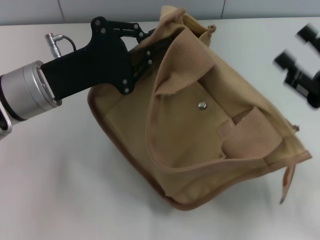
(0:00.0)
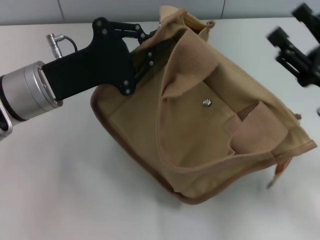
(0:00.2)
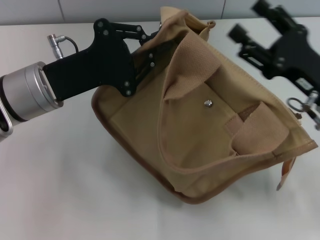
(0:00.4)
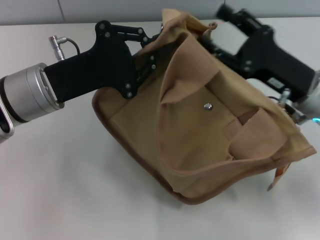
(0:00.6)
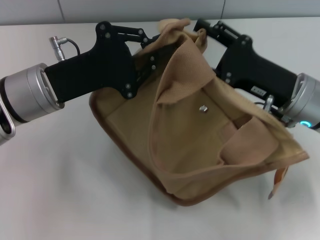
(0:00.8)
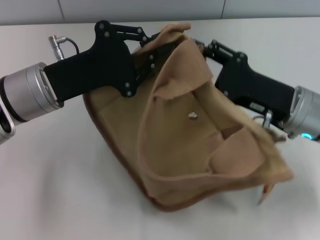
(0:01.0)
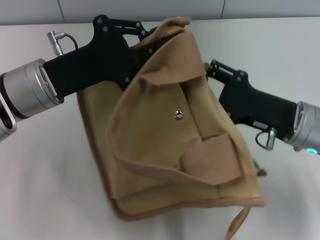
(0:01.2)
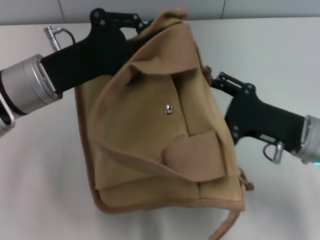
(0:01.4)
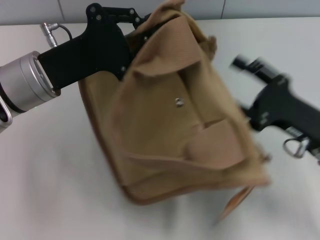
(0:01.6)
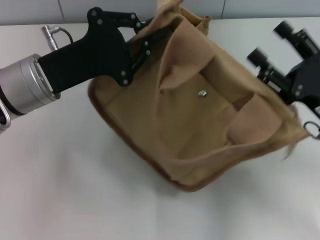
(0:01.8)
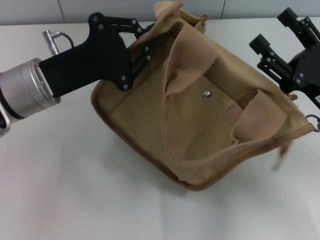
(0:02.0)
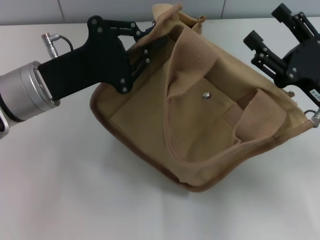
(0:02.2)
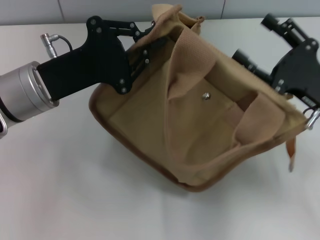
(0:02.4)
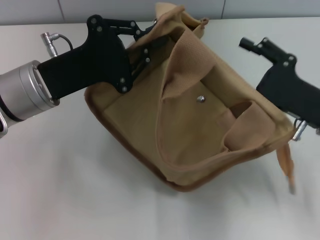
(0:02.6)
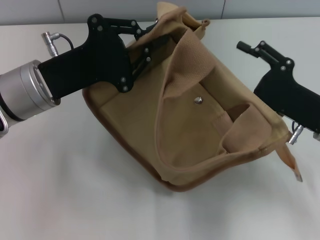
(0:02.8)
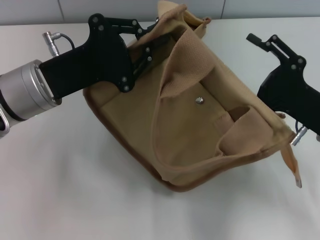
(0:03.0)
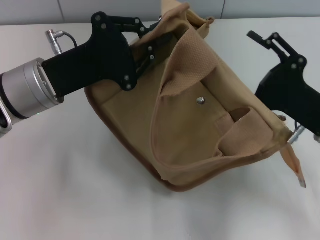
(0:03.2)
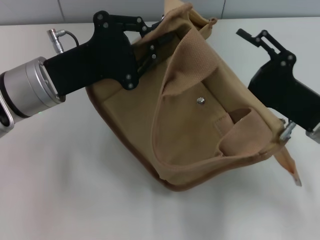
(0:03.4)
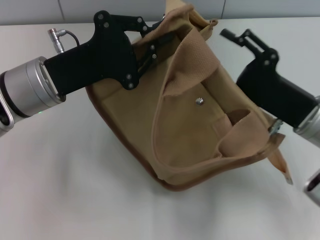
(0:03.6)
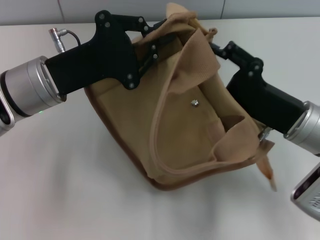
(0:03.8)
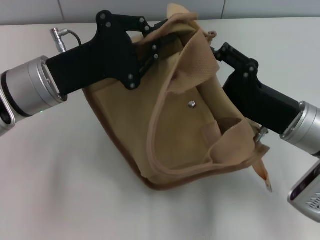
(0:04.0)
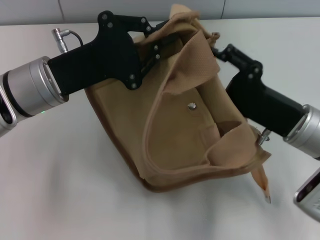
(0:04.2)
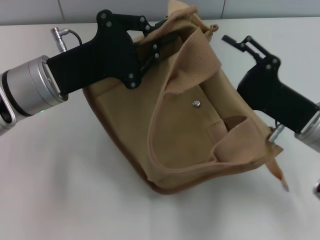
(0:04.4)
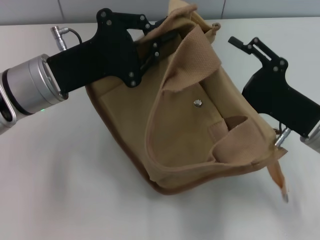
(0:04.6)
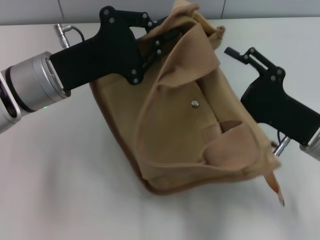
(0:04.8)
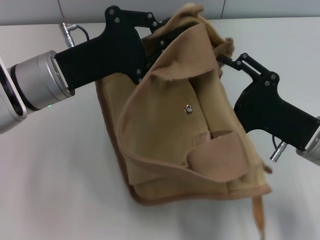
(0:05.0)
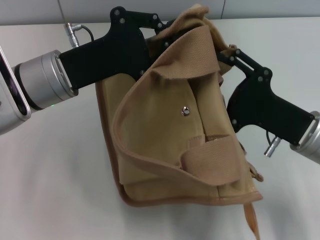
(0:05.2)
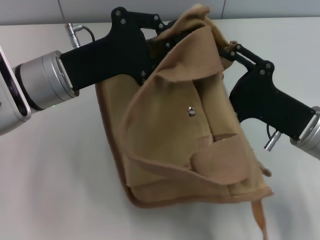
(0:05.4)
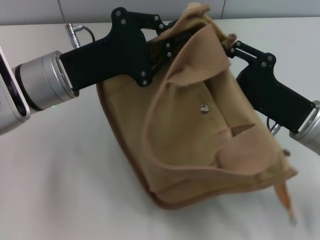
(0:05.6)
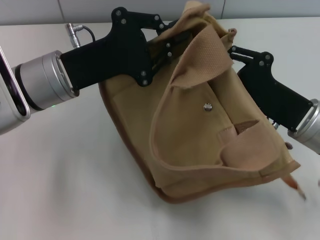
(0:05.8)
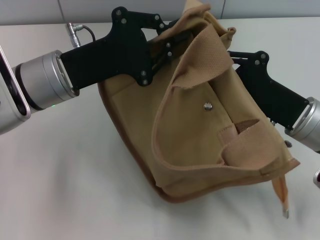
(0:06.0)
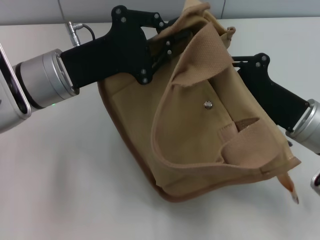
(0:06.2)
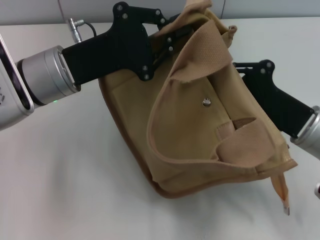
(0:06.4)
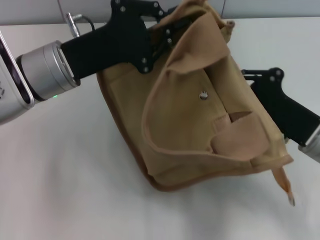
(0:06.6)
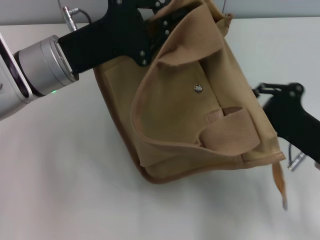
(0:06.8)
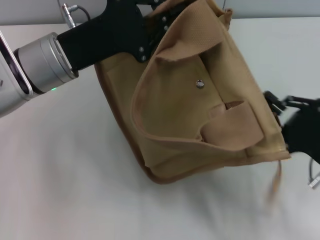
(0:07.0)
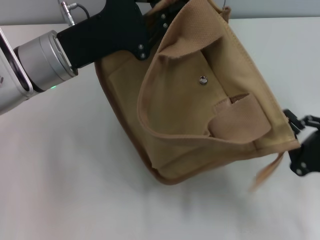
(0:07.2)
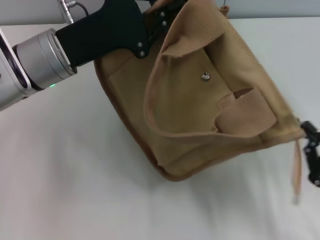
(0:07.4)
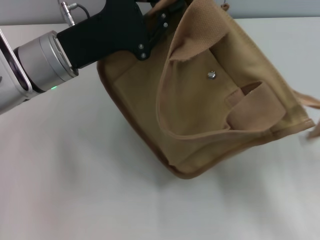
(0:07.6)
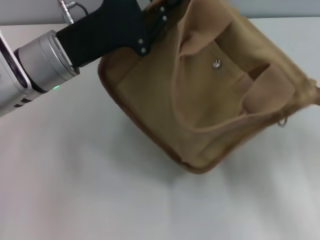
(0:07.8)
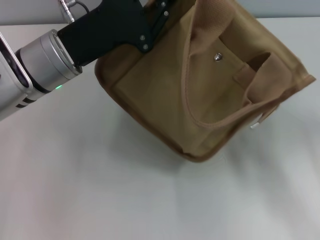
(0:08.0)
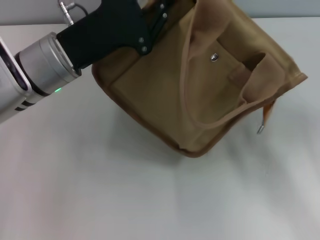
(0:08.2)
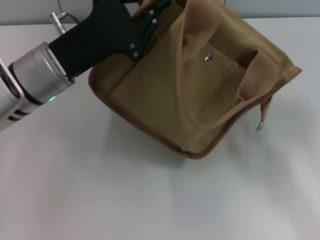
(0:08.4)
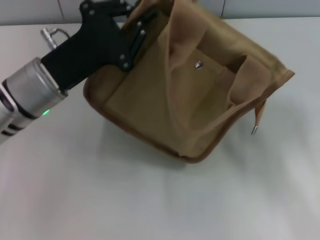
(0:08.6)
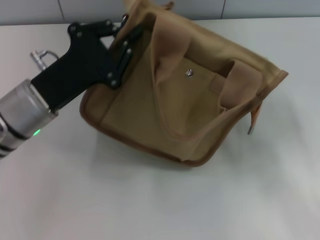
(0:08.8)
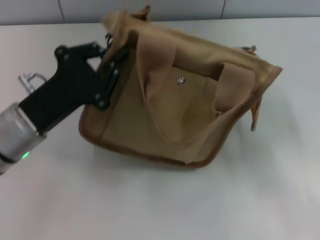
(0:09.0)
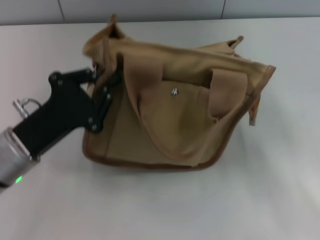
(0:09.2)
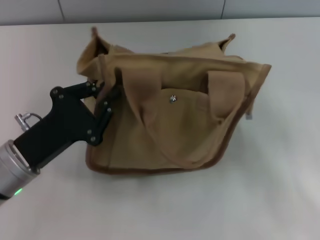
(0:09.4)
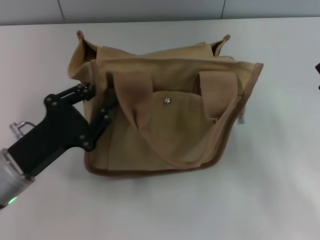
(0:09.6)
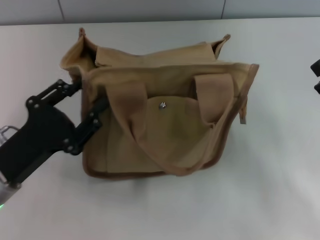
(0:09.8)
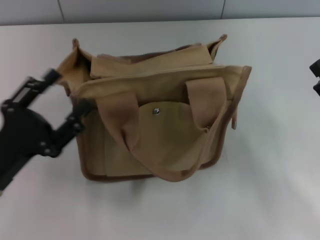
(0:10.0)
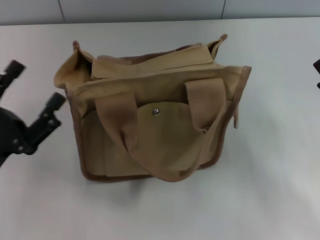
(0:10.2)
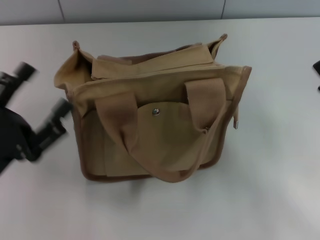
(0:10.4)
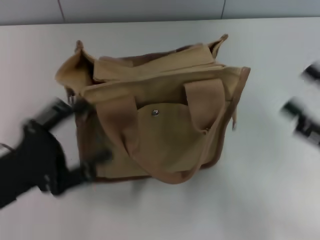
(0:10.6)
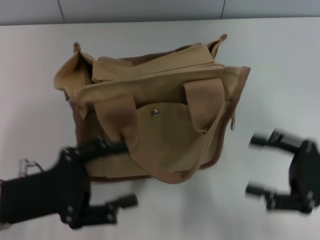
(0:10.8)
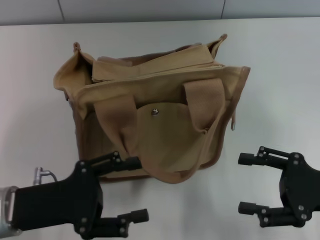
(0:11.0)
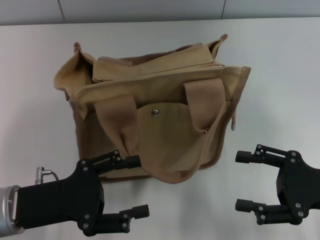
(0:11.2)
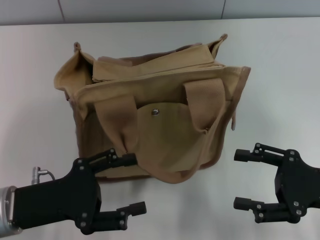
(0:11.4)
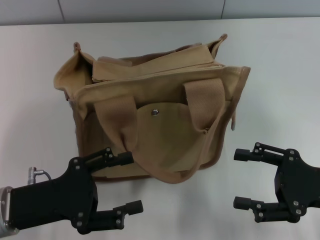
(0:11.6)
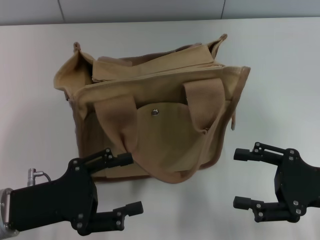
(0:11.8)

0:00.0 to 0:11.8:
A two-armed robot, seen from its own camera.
Step, 0:00.0 to 0:08.0: Pull open the zipper with your right hand.
Step, 0:08.2 to 0:09.8: Grab the bag with your left hand.
0:00.0 to 0:01.4: The right gripper is displaced to the left by approximately 5 cm.
0:04.4 to 0:06.0: The right gripper closes up.
0:06.0 to 0:07.4: The right gripper is displaced backward and to the right by roughly 15 cm.
0:07.4 to 0:08.8: The left gripper changes place by roughly 5 cm. The right gripper changes place by approximately 5 cm, and opens up.
0:08.8 to 0:10.4: The left gripper goes about 15 cm backward and to the left, and opens.
